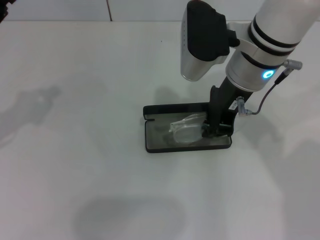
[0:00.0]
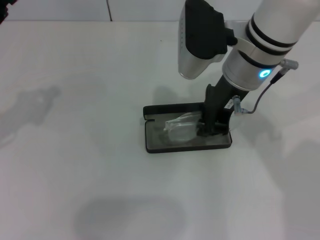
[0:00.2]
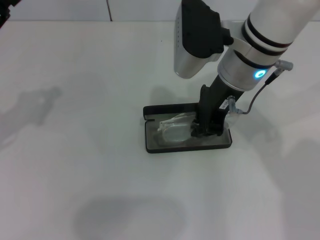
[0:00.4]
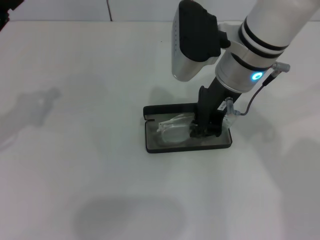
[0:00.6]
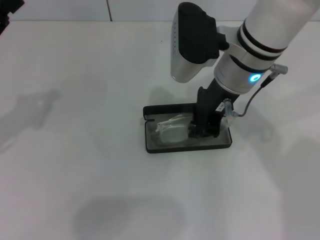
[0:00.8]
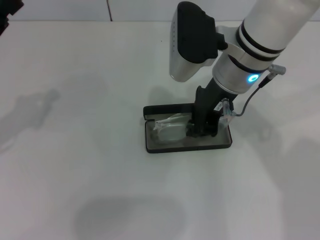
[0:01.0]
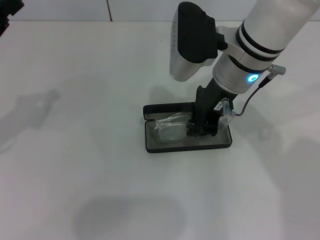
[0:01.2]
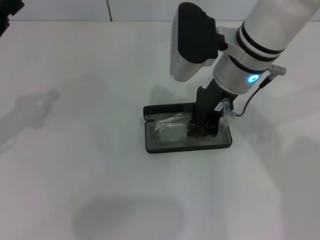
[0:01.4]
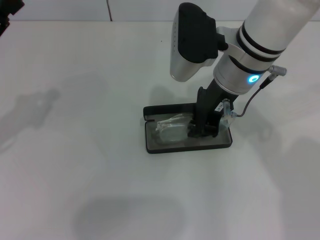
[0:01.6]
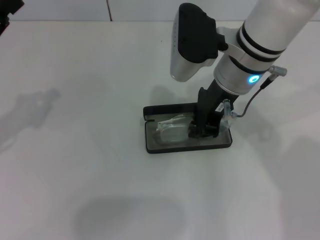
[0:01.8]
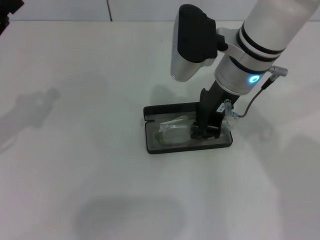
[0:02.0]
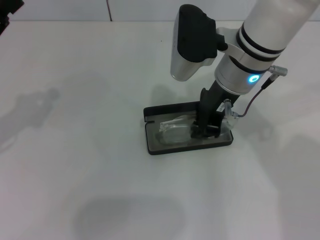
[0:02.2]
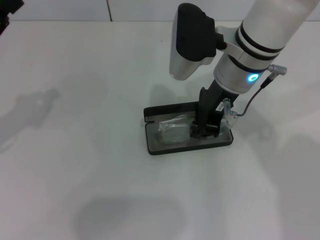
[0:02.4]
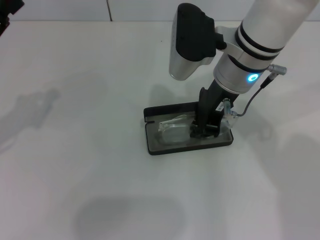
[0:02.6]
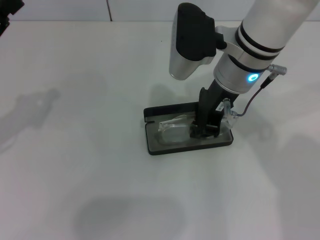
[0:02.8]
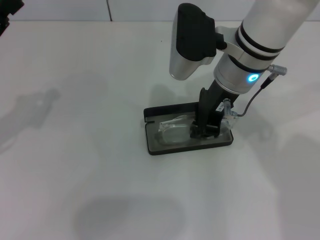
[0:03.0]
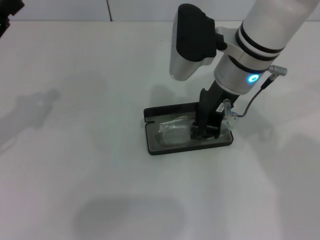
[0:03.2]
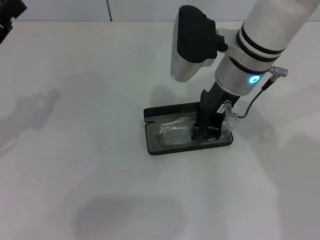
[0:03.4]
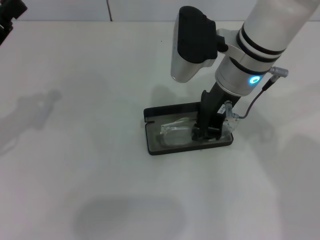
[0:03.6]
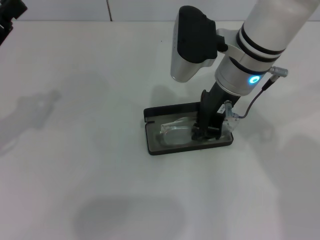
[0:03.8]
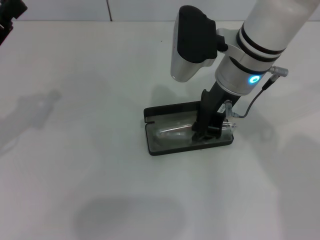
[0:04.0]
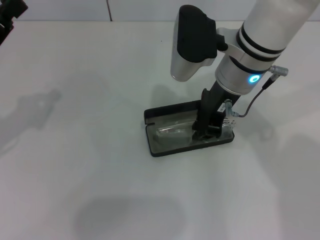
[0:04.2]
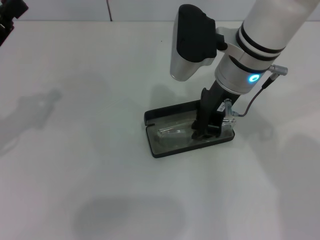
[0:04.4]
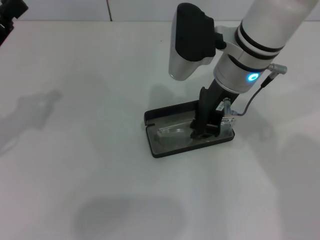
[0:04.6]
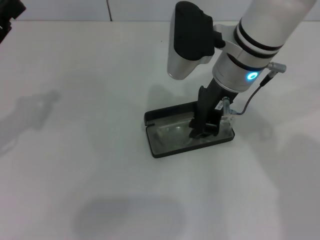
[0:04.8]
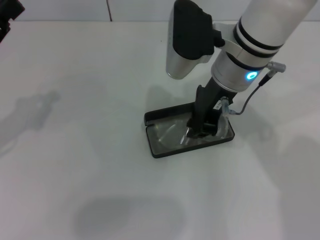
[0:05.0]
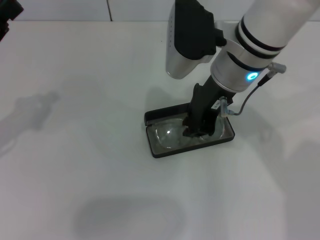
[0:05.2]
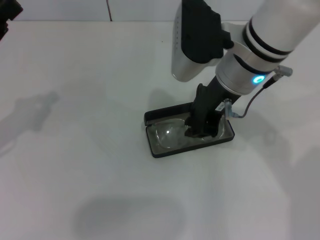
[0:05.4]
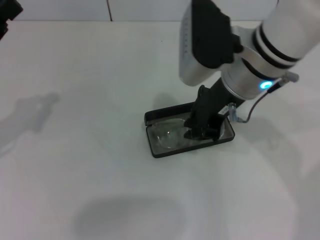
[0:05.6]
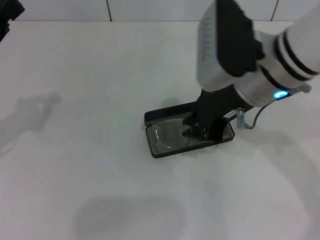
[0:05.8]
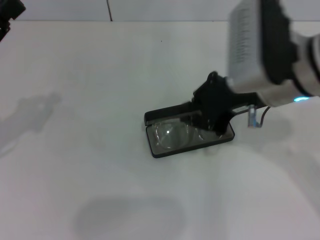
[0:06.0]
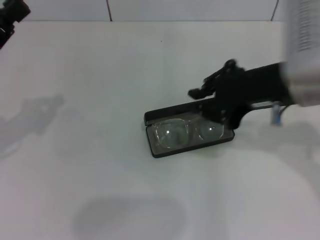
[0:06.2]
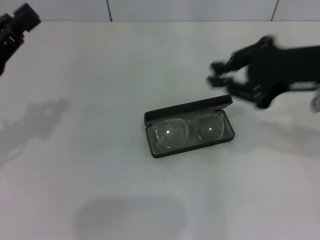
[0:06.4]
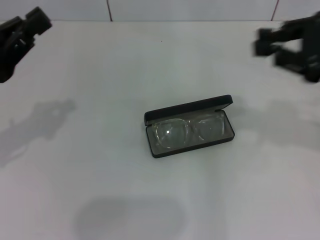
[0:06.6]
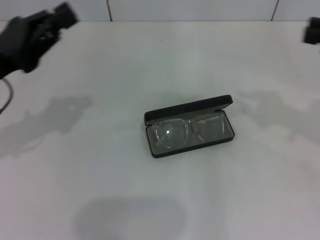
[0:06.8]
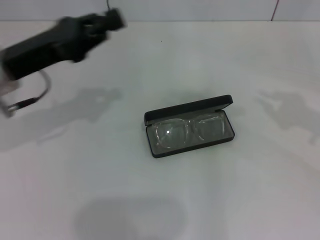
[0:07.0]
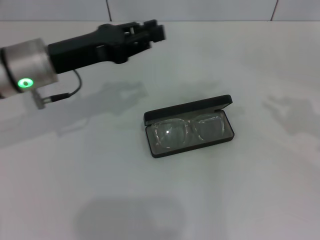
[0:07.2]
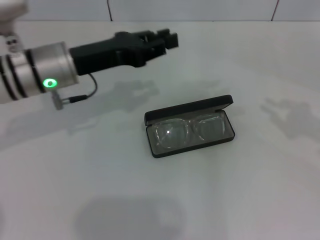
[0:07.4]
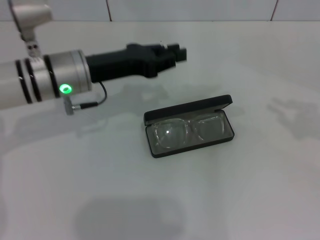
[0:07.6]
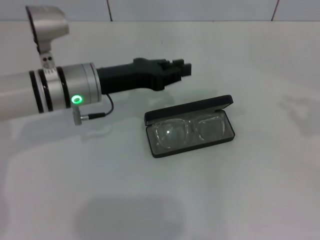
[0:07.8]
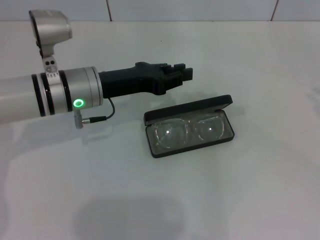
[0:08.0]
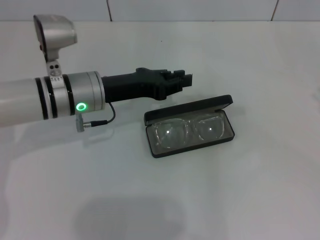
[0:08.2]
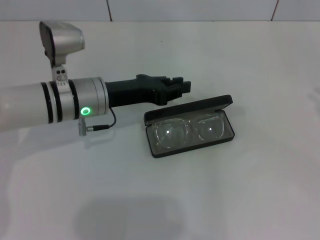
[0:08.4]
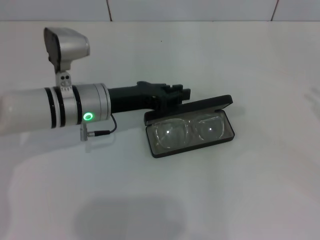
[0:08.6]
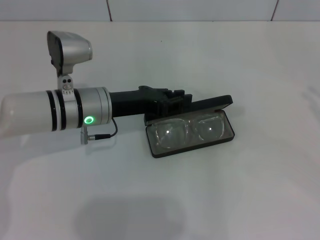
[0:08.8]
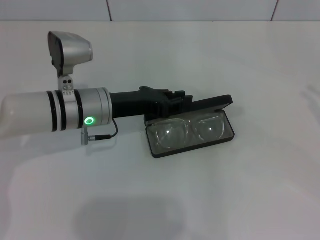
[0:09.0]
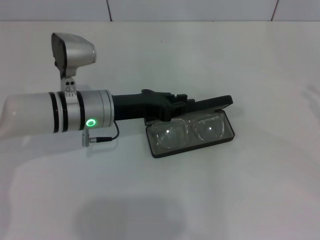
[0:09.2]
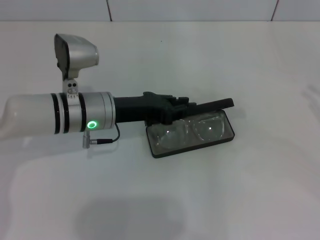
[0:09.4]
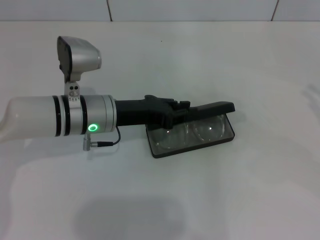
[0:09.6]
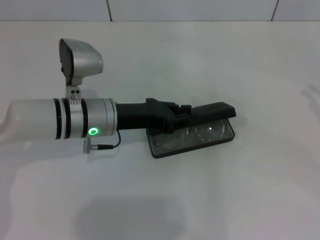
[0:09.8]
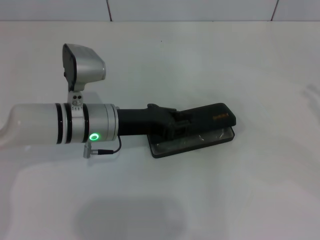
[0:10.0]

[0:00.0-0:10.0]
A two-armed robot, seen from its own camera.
Step, 0:00.0 to 0:05.0: Put the glasses into the case with your right hand.
0:00.0 to 0:01.4: The grippers make only small movements.
0:01.4 to 0:04.2: The two grippers keep their place.
0:04.2 to 0:05.8: The right gripper changes place by about 5 cm.
0:05.8 to 0:07.2: The right gripper goes about 25 cm to the right. The left gripper shifts about 15 cm to the right and forward.
0:07.2 to 0:08.6: The left gripper goes some 10 cm downward and to the right, while the right gripper shifts by approximately 5 cm.
0:08.6 to 0:10.0: There are only small adjustments of the grippers.

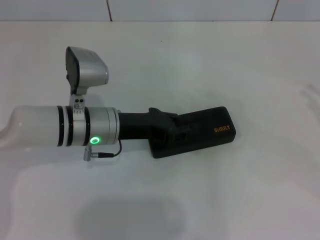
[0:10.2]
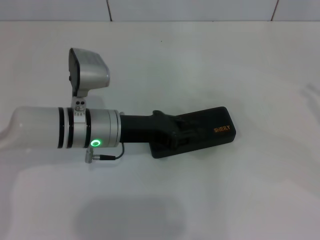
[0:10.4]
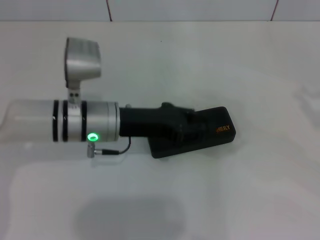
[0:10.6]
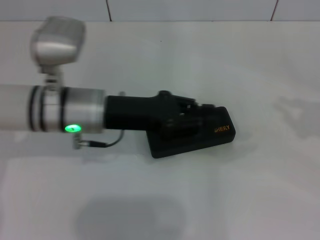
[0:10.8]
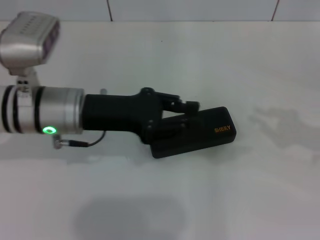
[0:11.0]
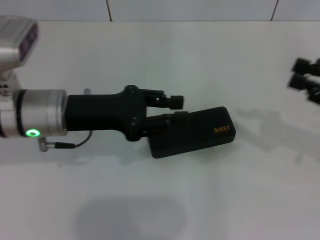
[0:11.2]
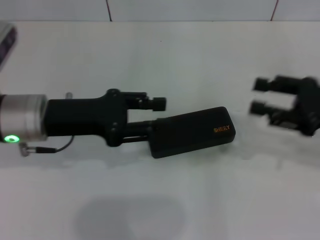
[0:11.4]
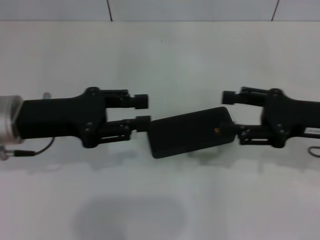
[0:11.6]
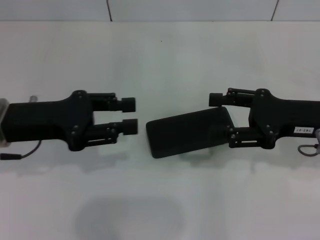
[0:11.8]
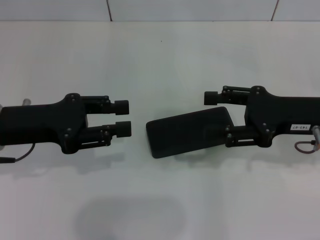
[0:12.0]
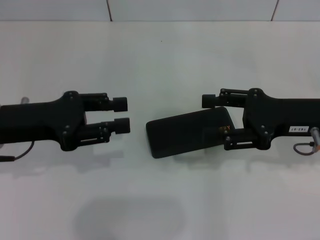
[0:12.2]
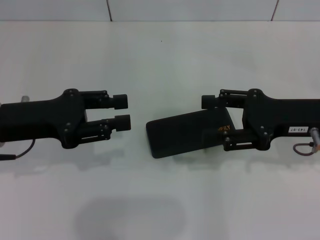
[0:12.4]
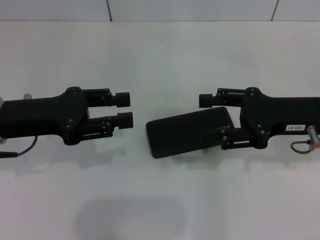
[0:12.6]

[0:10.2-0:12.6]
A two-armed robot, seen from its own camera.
0:10.2 to 0:11.4: The left gripper travels to the left and upward by approximately 10 cm, while the right gripper is displaced to the left by approximately 10 cm.
0:11.4 to 0:12.6: The right gripper shifts roughly 5 cm to the left, and opens; the left gripper ends up approximately 5 cm from where it was.
